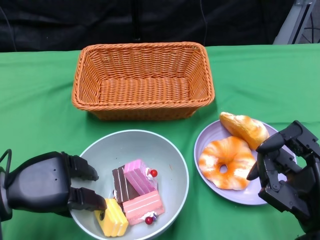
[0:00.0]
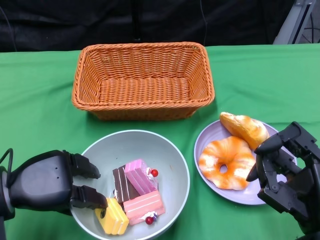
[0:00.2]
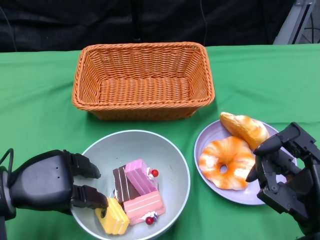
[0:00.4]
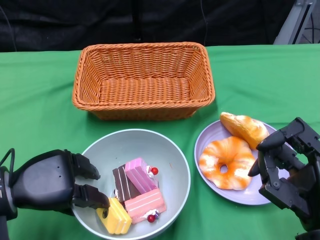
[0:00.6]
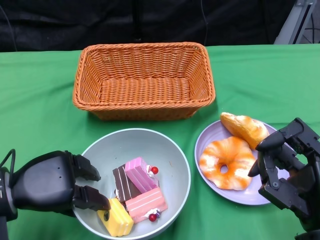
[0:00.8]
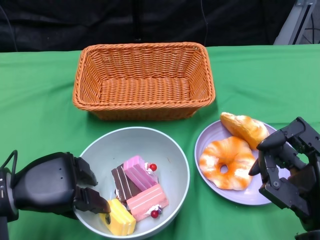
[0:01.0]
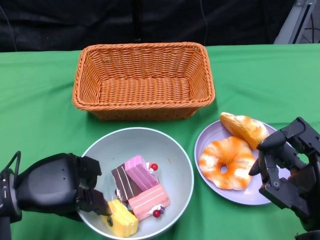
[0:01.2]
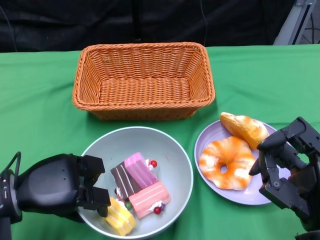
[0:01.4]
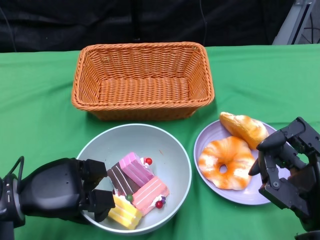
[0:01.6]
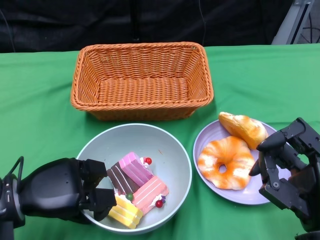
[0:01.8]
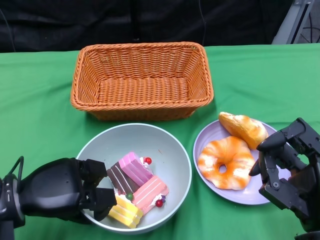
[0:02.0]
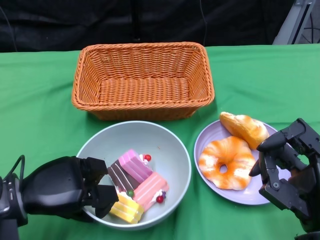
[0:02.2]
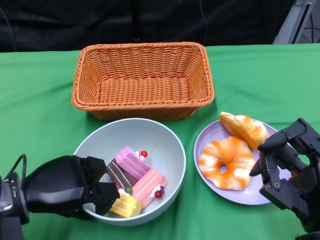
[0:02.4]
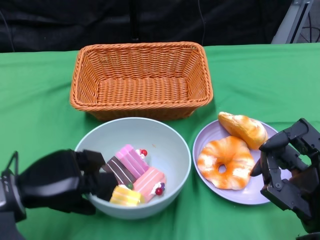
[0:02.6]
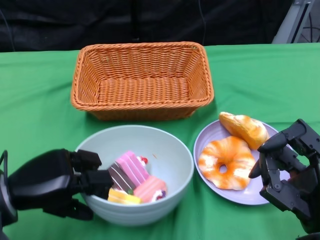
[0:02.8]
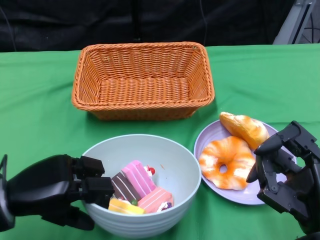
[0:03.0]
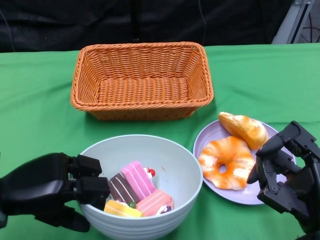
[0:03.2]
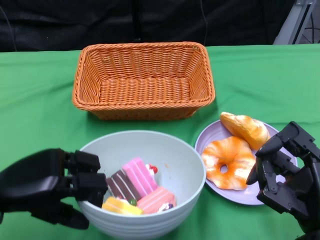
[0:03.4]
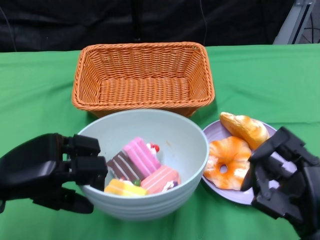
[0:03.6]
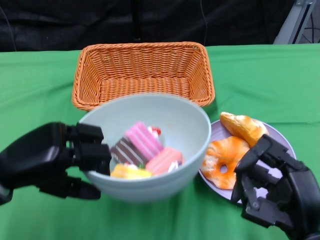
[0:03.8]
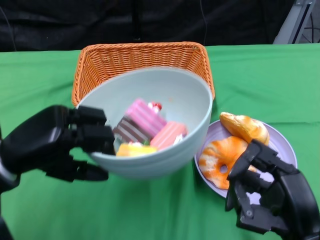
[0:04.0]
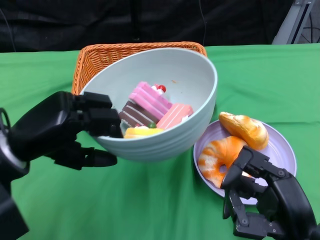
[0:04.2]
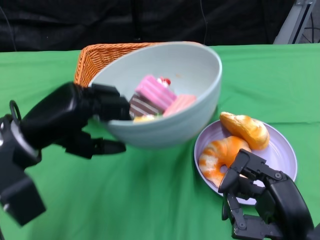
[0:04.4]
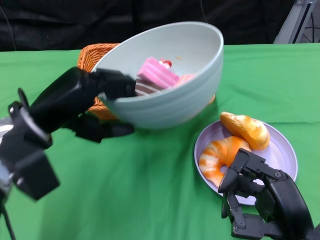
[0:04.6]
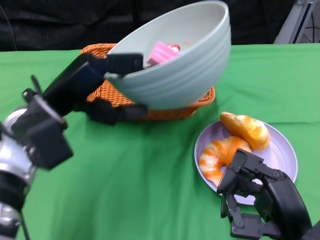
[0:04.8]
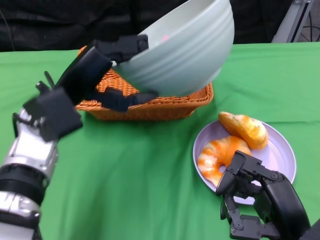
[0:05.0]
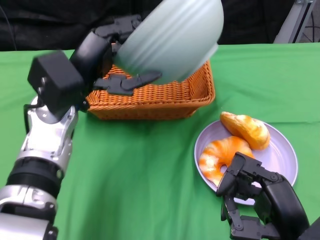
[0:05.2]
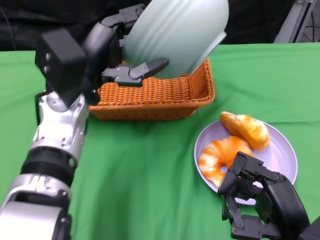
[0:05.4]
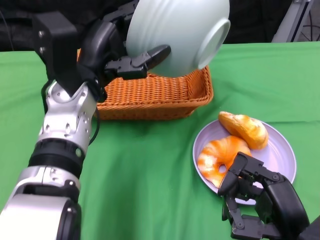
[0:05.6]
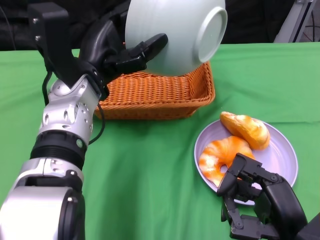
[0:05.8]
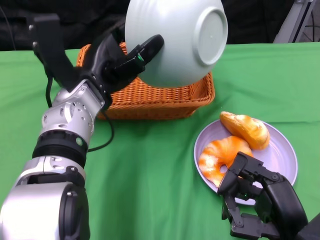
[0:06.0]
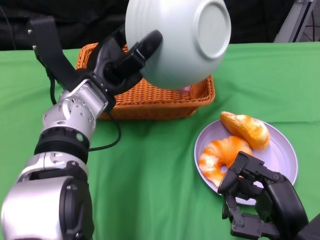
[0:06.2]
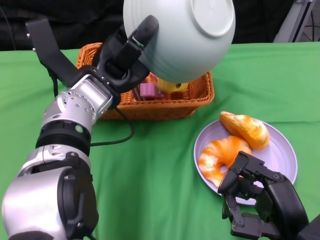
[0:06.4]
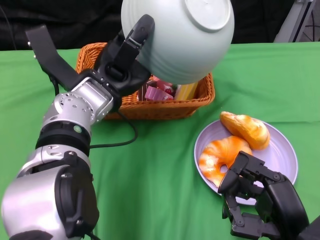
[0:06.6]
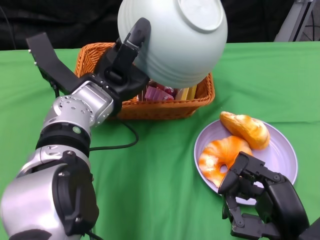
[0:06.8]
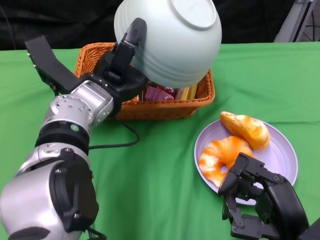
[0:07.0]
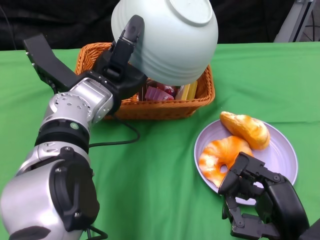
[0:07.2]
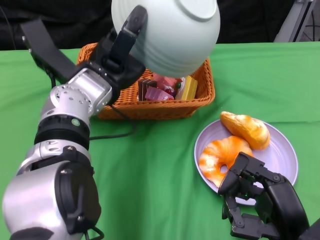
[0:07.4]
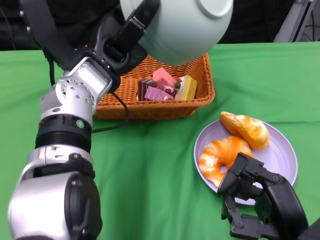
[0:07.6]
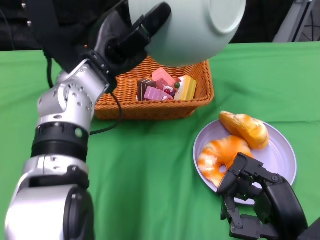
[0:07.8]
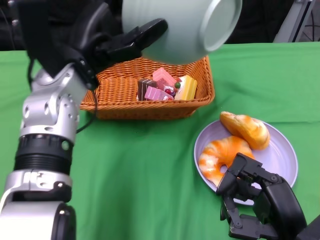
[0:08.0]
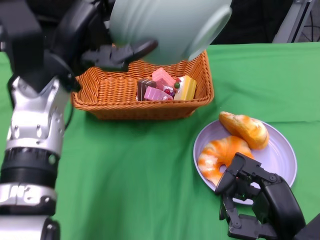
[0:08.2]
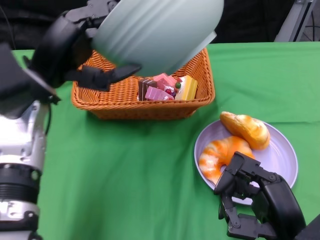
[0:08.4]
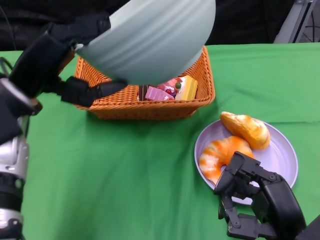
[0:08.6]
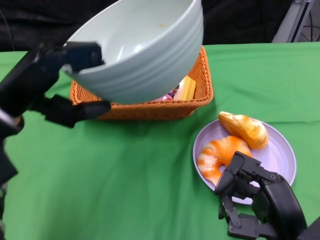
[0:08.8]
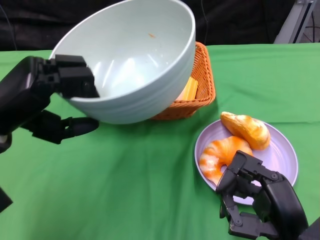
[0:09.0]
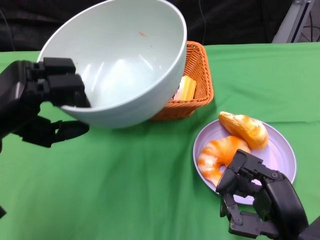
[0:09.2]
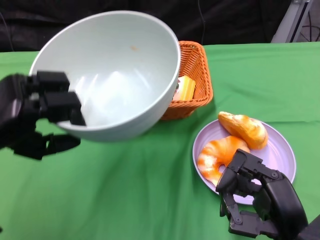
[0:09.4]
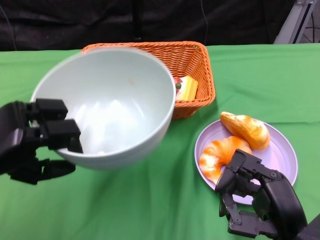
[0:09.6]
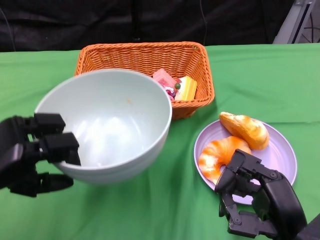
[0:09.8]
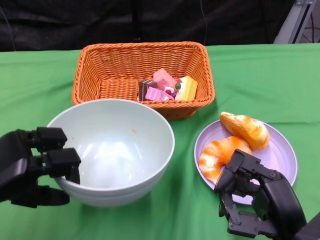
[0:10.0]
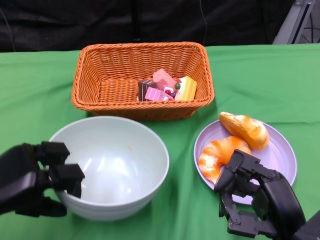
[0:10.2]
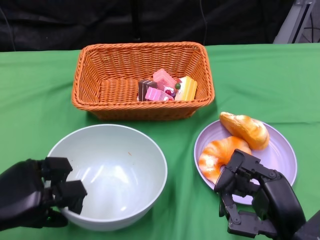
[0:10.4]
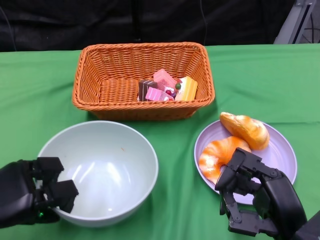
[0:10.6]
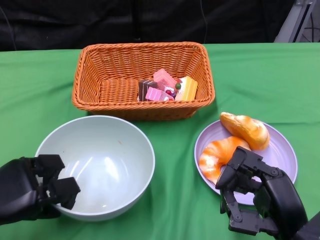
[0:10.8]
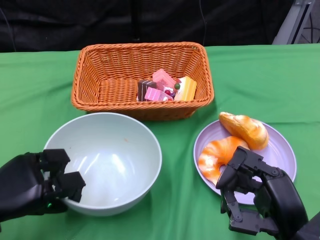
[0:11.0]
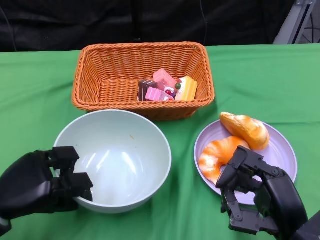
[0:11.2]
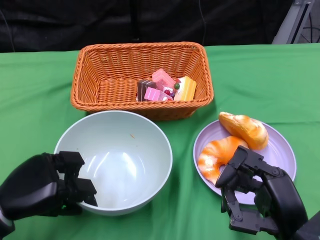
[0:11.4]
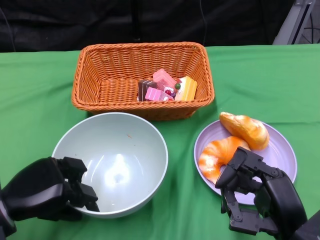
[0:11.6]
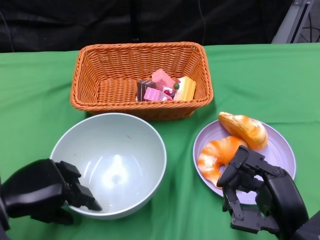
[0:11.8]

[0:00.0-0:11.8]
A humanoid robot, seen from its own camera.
Step, 0:00.0 to 0:02.0: Grasp the bowl with the left gripper.
Step, 0:02.2 to 0:06.8: Pour the cake into the basket with the left gripper.
0:00.0 to 0:01.4: The hands move only a little.
0:03.0 to 0:04.4: The left hand moves upward, approximately 5 cm.
0:04.4 to 0:06.0: The left hand shifts roughly 10 cm to the right and forward.
0:07.4 to 0:08.8: The left hand is displaced to the left and backward by roughly 15 cm.
0:08.8 to 0:10.4: The left hand shifts approximately 15 cm downward and backward.
0:10.4 to 0:11.8: The hands make only small movements.

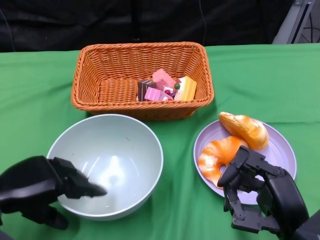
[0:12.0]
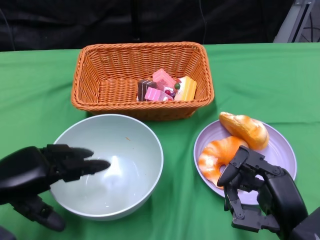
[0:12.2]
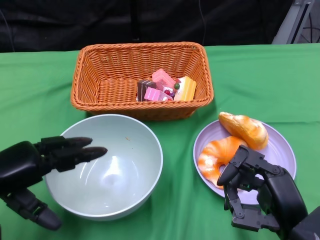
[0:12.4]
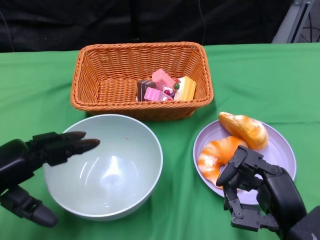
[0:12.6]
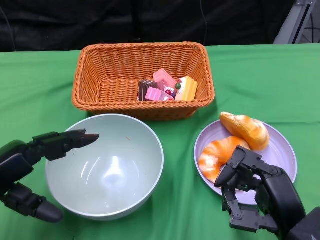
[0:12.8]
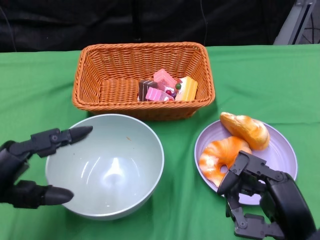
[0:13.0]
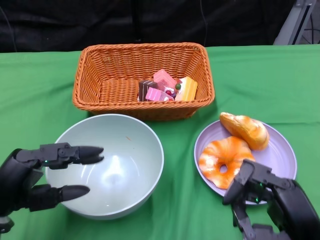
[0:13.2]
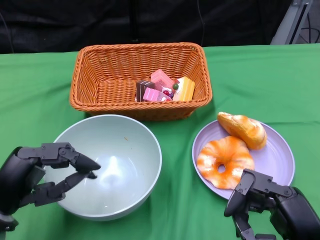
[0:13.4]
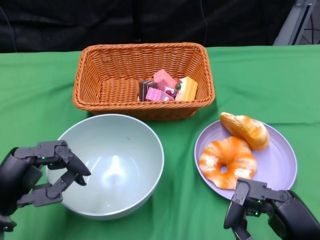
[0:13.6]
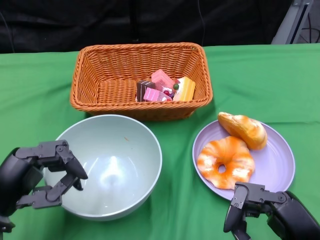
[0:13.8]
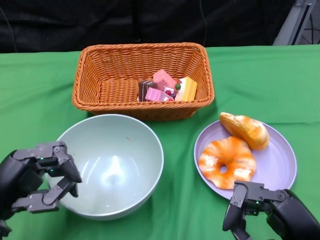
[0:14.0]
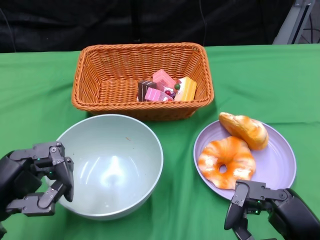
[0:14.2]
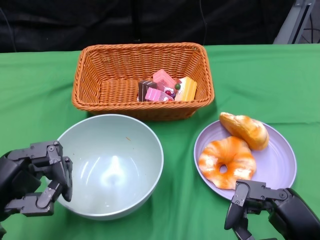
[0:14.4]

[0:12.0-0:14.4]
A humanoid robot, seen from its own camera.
0:13.2 to 0:14.4: The hands make only small movements.
